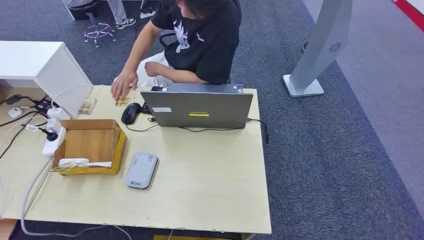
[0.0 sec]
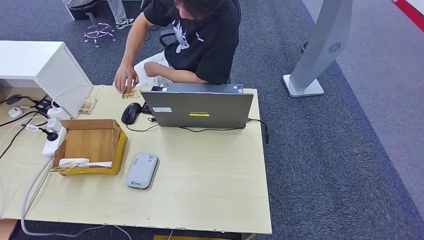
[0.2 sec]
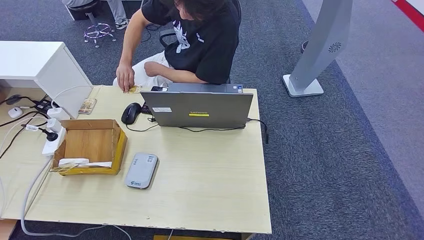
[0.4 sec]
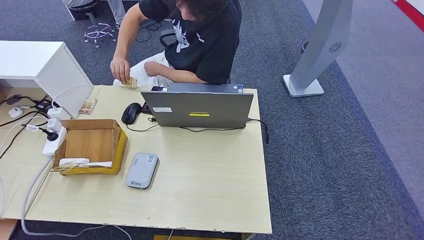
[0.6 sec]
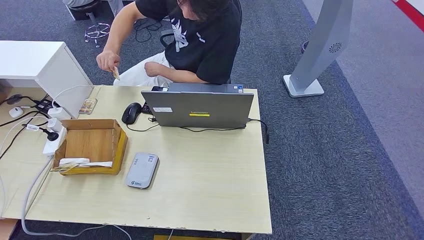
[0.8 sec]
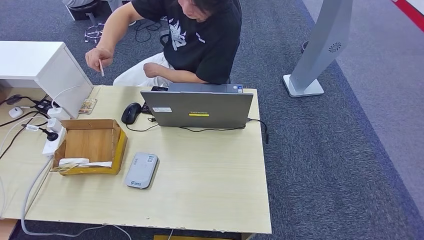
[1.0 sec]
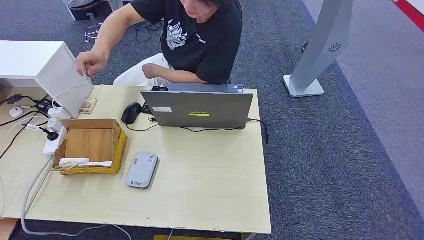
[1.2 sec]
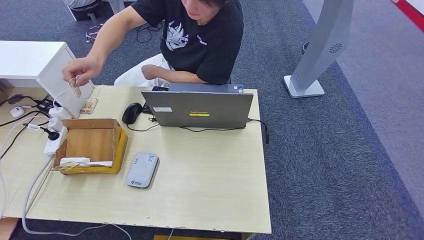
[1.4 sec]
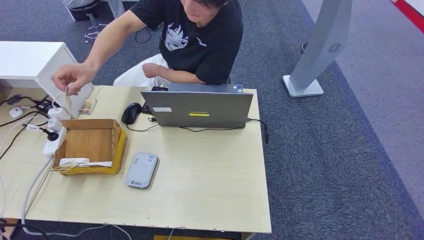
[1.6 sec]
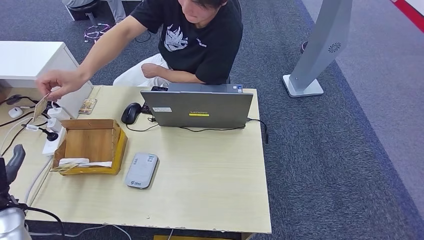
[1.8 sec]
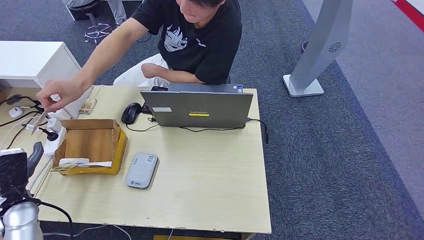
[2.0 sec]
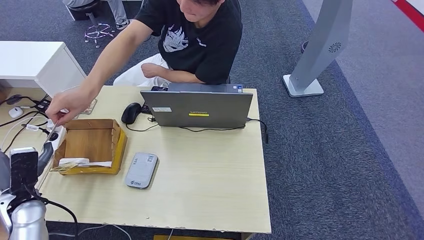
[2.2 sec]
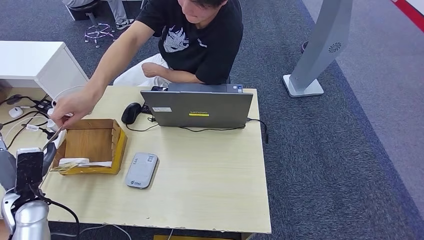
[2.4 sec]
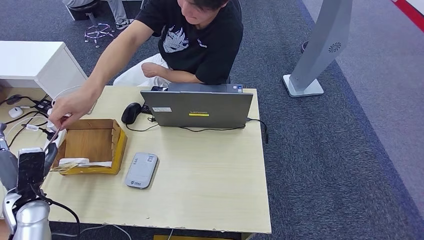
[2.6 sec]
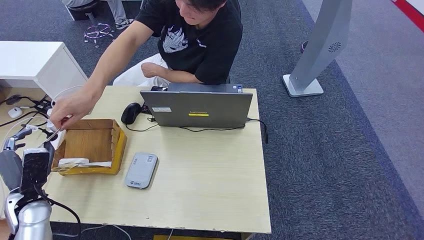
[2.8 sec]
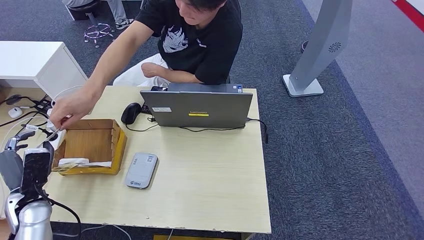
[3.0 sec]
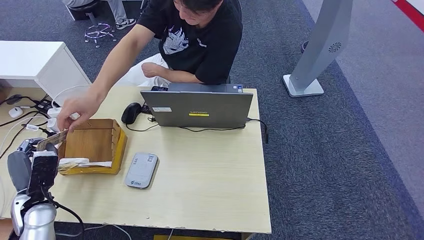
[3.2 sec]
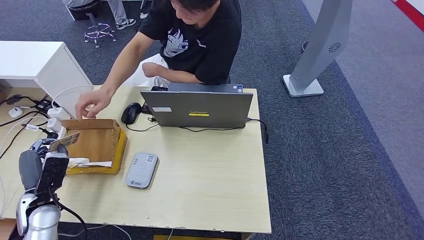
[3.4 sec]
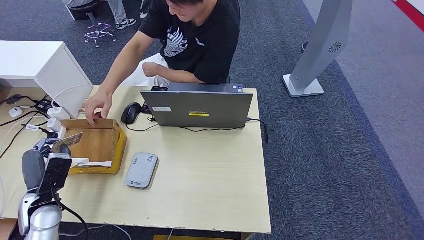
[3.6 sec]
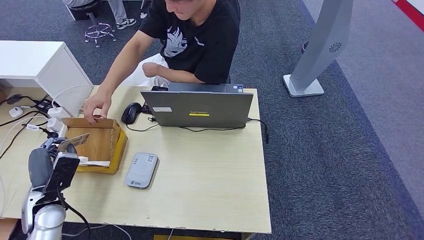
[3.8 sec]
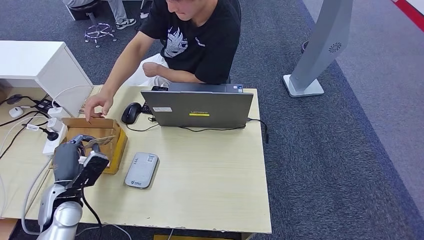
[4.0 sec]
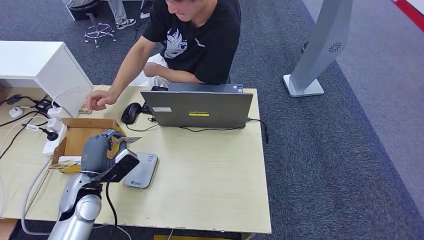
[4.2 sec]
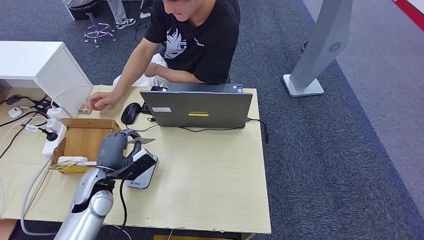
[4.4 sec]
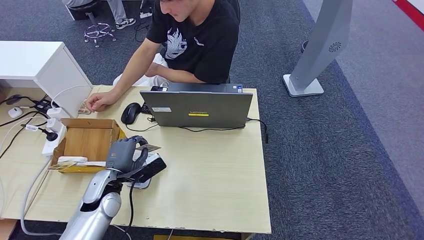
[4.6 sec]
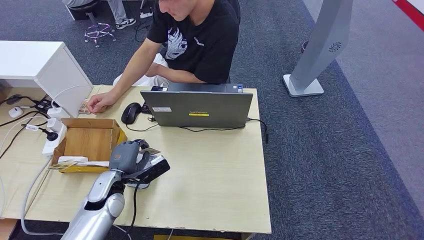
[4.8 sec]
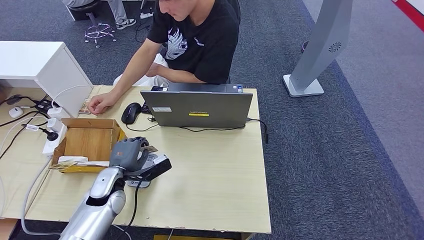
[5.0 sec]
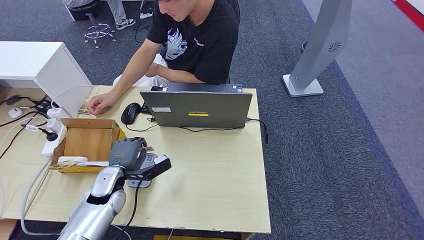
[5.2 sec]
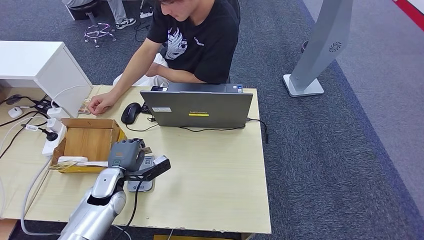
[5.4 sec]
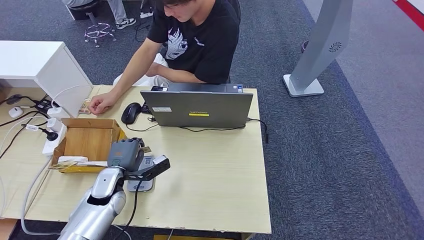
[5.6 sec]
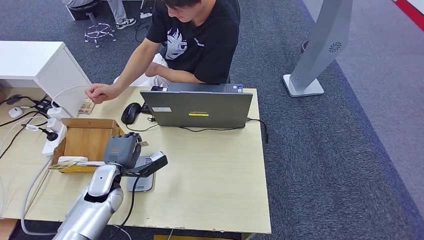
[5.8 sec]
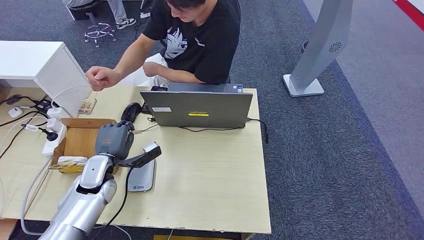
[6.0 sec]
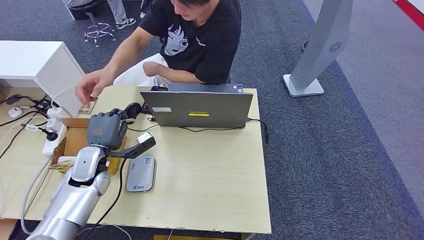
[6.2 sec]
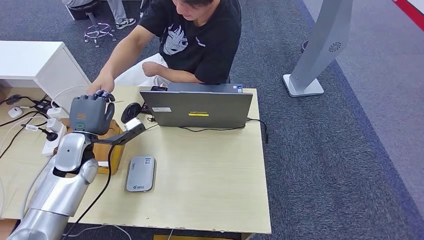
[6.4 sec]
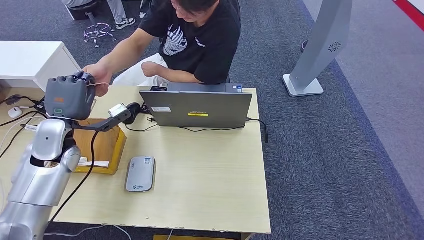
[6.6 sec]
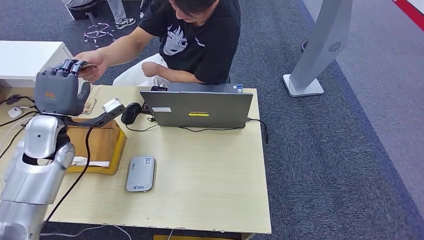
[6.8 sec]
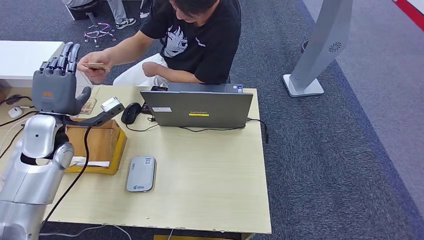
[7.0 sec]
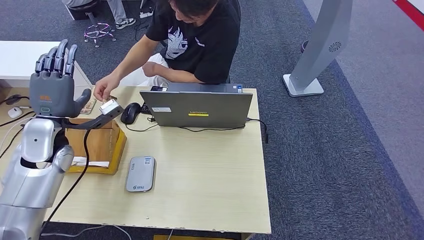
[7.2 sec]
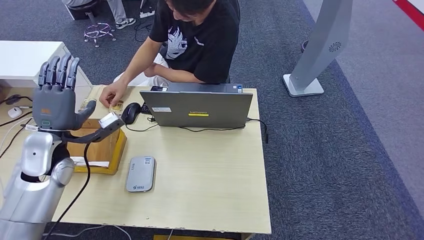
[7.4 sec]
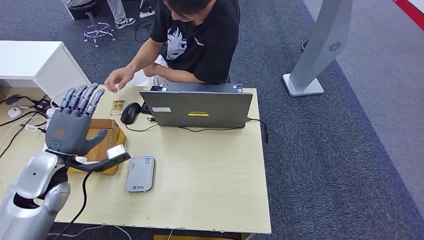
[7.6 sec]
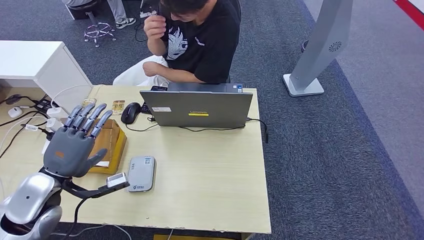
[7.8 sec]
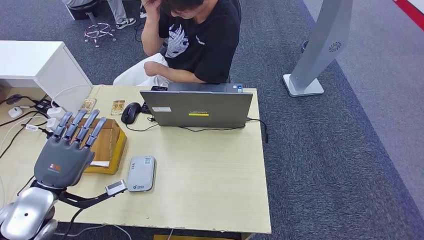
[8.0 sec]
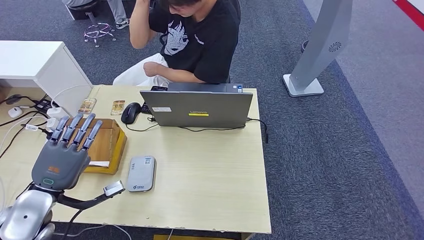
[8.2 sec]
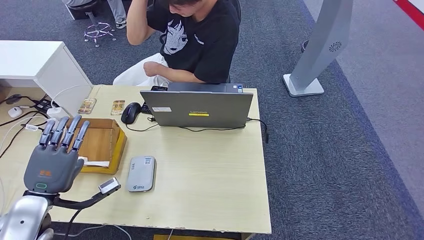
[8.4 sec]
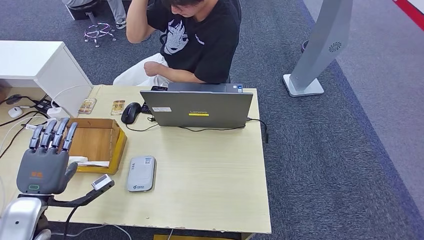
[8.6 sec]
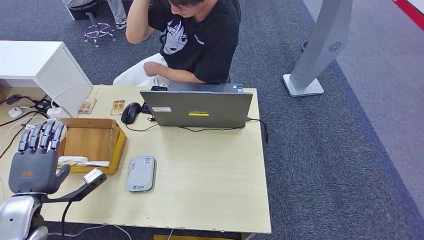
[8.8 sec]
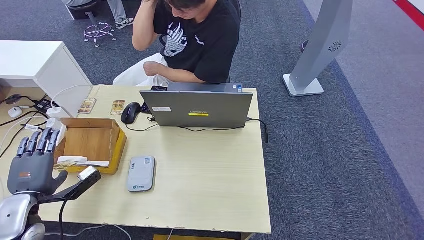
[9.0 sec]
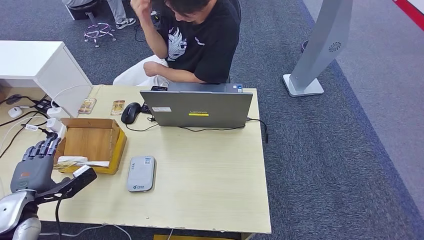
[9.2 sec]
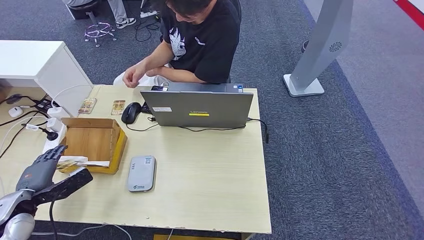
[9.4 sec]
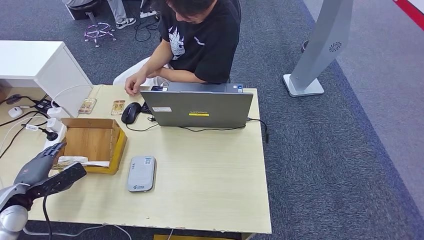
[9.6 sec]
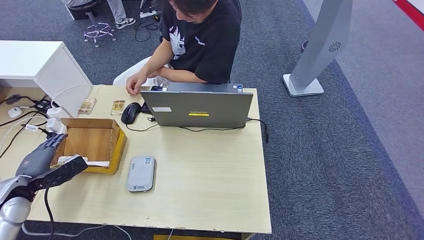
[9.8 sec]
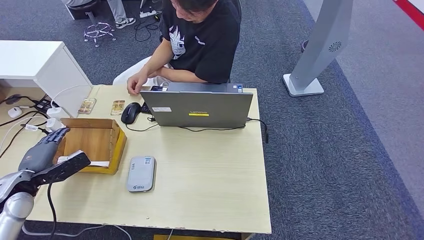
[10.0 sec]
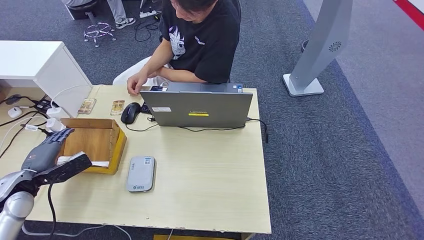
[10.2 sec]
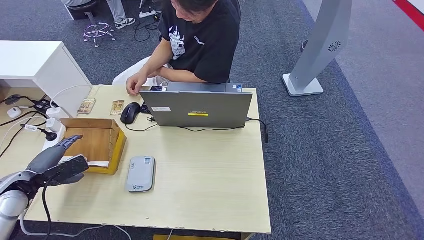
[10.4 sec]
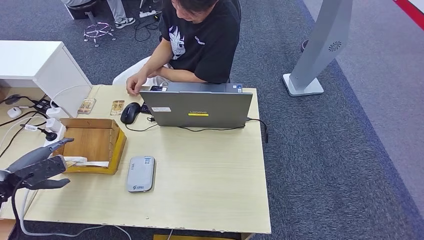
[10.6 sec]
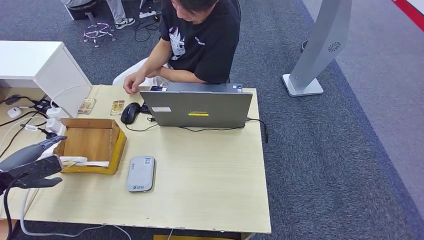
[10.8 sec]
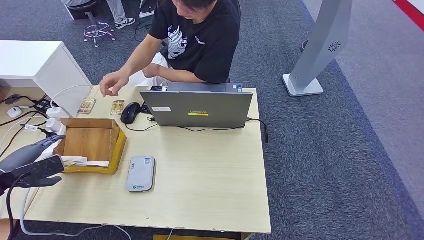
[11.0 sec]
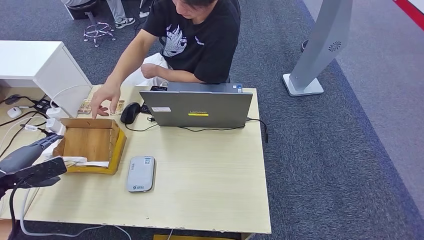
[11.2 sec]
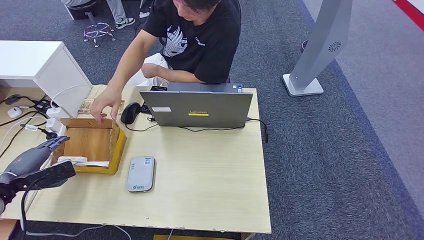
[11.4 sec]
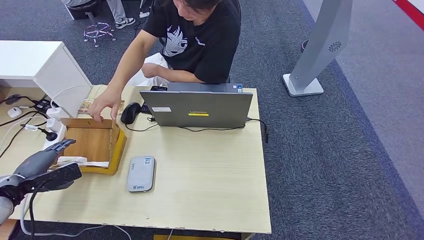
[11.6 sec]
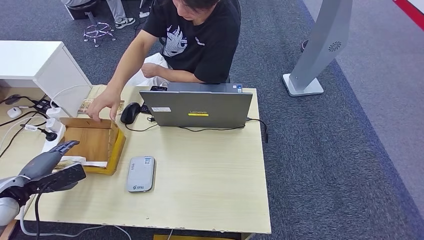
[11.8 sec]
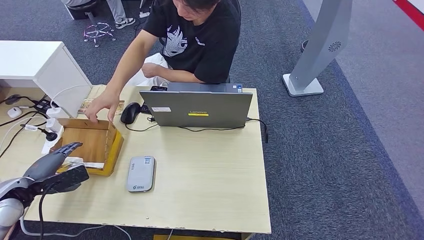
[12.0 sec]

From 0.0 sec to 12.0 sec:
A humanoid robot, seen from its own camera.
Step, from 0.0 sec to 4.4 sec: Take the ID card from the person's hand.
Step, from 4.6 sec to 4.8 sec: Place the ID card on the card reader.
Step, from 5.4 sec to 7.4 sec: Hand the ID card to the person.
From 1.6 sec to 3.0 sec: The left hand is displaced forward and to the right by about 10 cm.
From 3.0 sec to 4.4 sec: The left hand heads to the right, covering about 15 cm.
From 6.0 sec to 7.6 sec: The left hand moves upward and to the left, some 10 cm.
From 7.6 sec to 9.0 sec: The left hand shifts some 10 cm backward, downward and to the left.
From 9.0 sec to 10.4 sec: The left hand travels to the left and forward by approximately 10 cm.

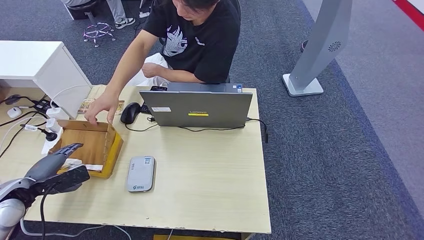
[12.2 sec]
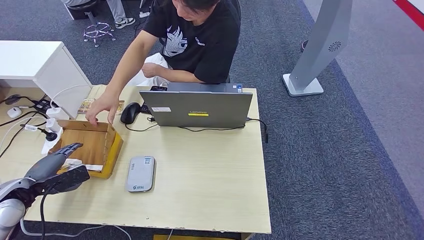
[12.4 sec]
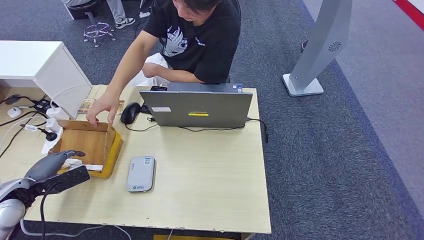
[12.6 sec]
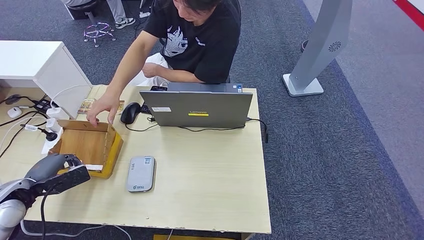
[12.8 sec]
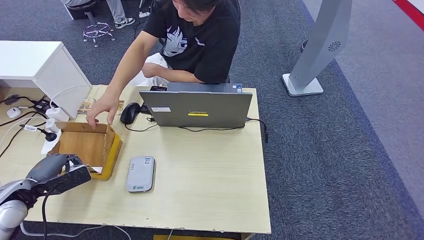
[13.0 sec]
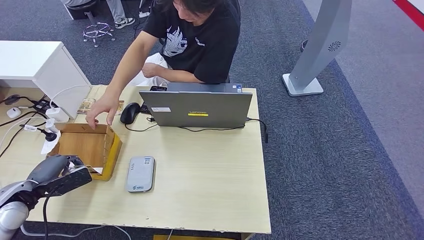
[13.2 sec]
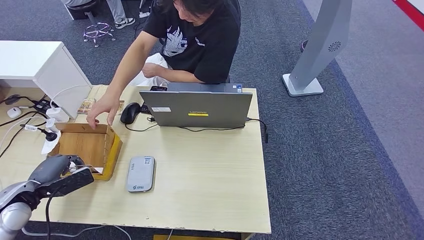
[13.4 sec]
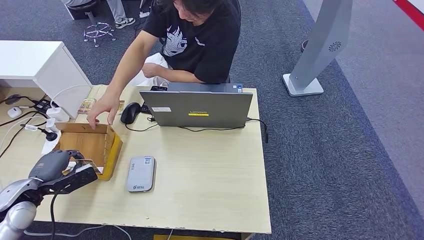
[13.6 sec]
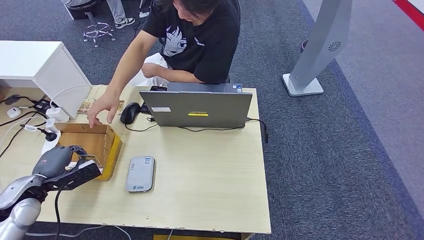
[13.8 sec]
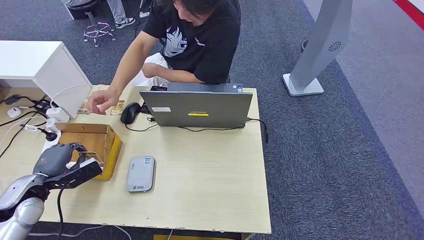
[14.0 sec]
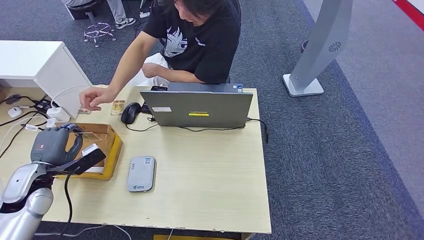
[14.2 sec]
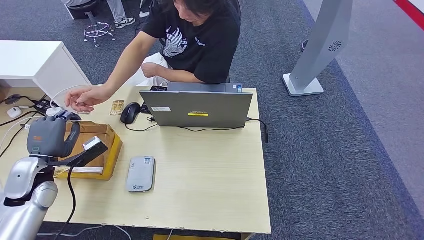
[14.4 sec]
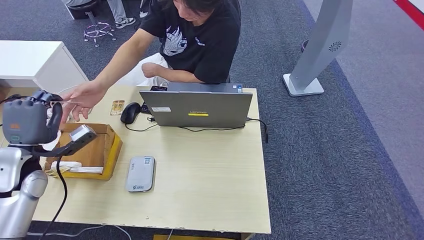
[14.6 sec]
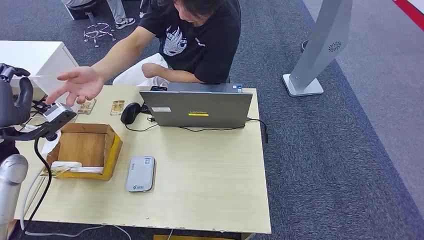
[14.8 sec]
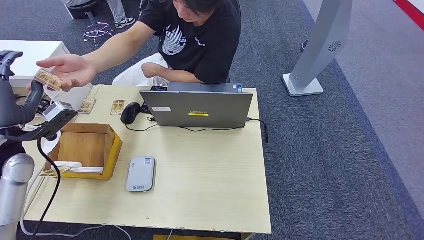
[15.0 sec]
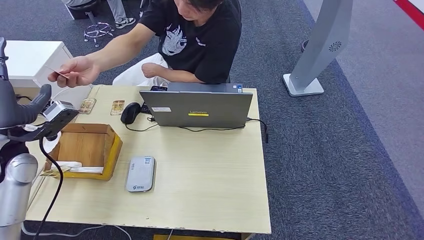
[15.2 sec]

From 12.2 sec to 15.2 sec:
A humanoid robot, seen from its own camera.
Step, from 12.2 sec to 14.4 sec: Pick up the room key from the key card box.
Step, from 14.6 sec to 15.2 sec: Hand the room key to the person.
From 12.2 sec to 13.8 sec: The hands stay close to where they were, moving slightly.
From 13.8 sec to 15.2 sec: The left hand shifts approximately 15 cm upward and forward.
